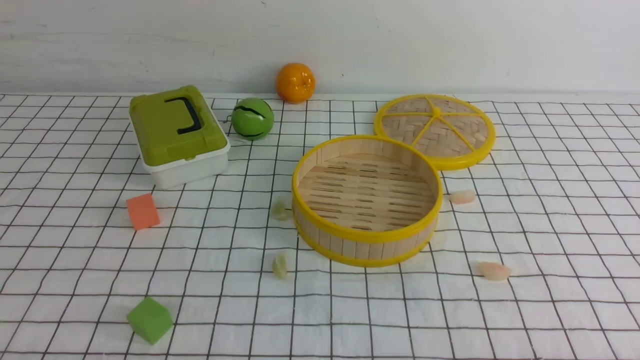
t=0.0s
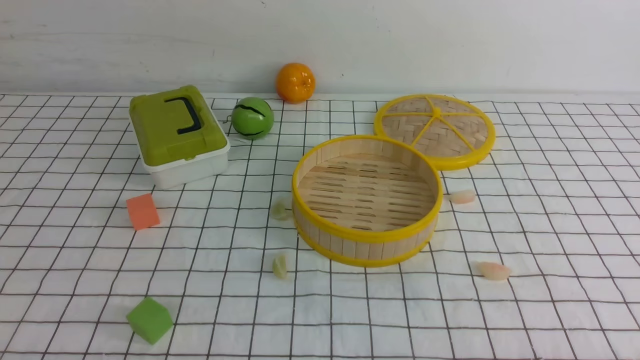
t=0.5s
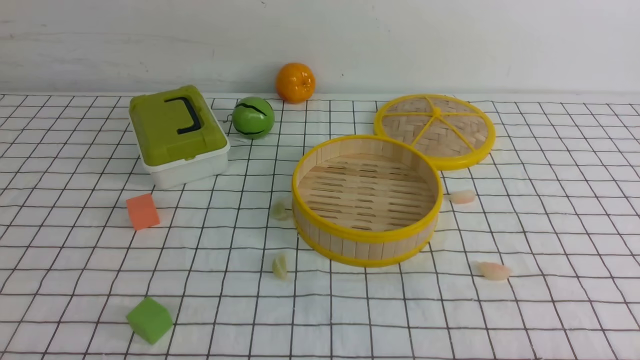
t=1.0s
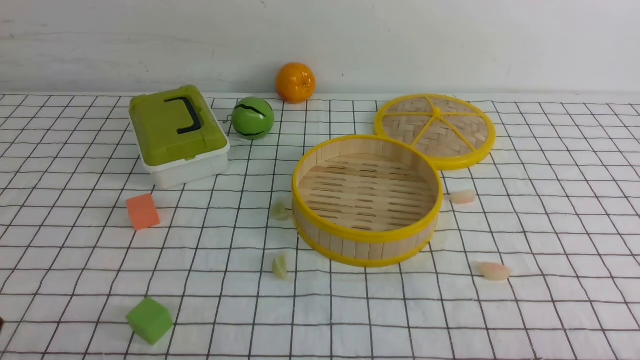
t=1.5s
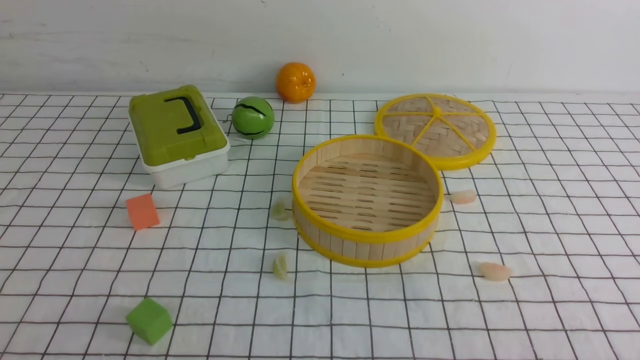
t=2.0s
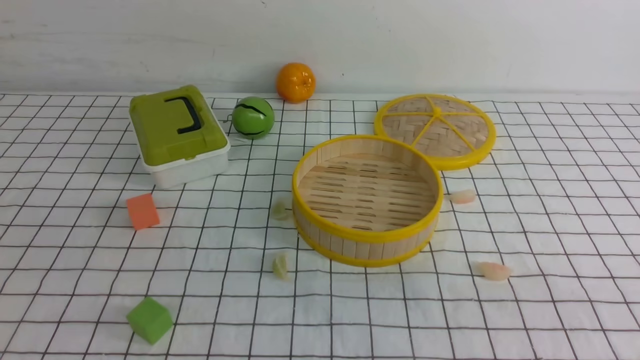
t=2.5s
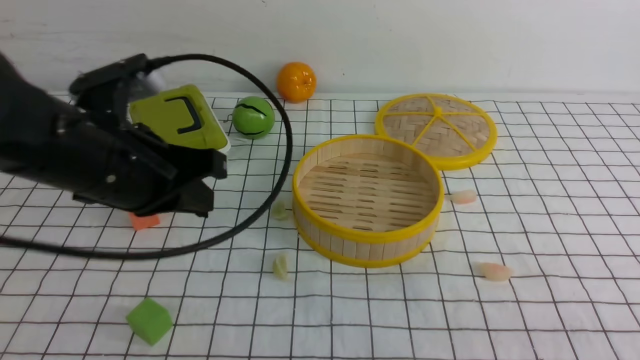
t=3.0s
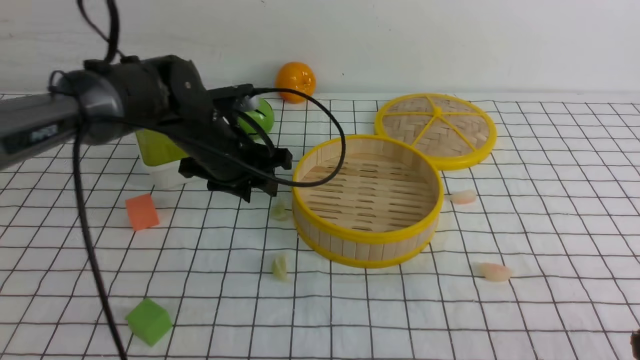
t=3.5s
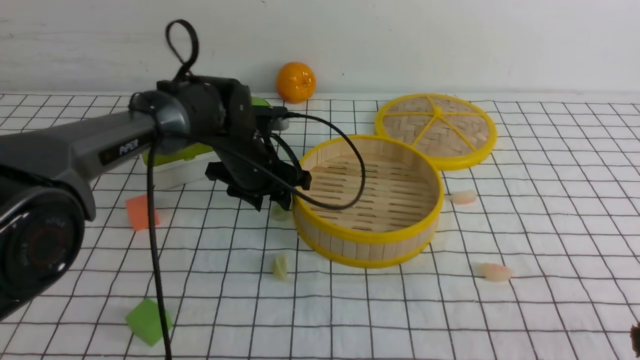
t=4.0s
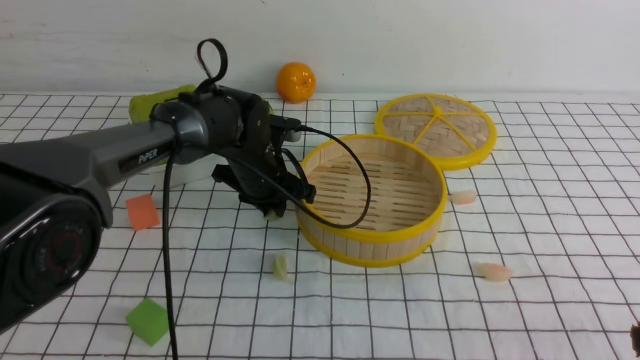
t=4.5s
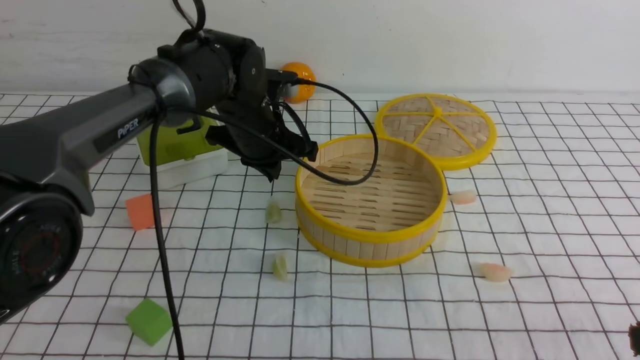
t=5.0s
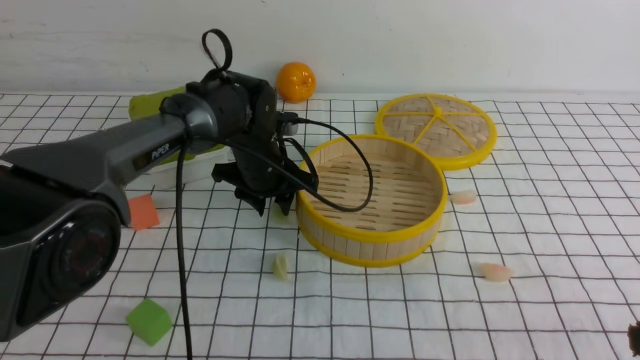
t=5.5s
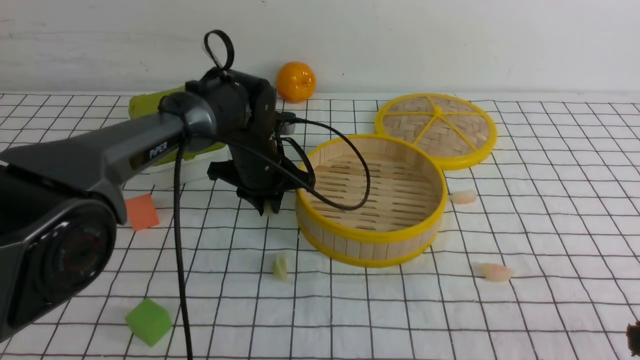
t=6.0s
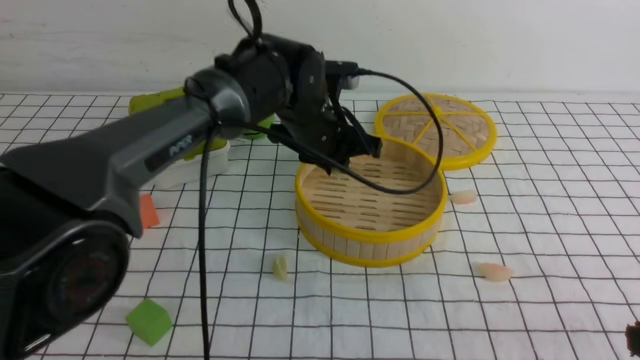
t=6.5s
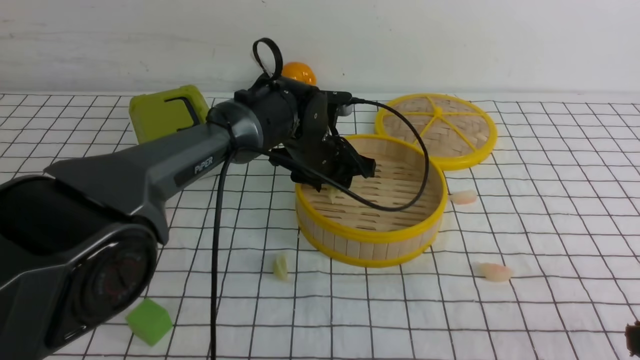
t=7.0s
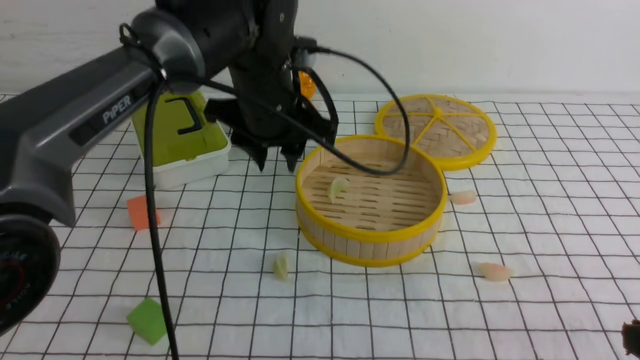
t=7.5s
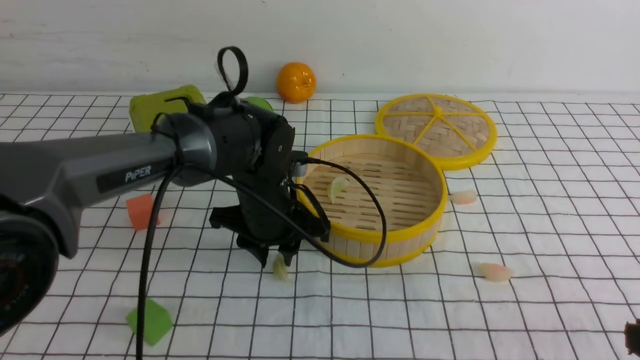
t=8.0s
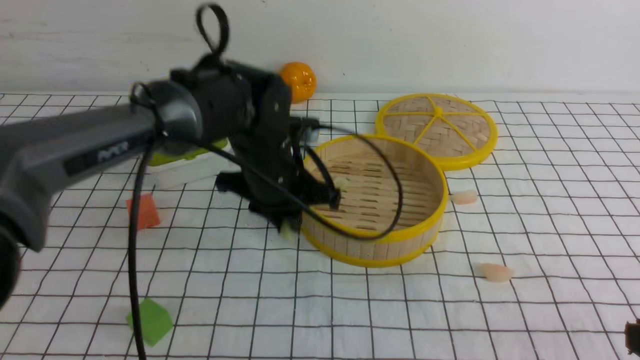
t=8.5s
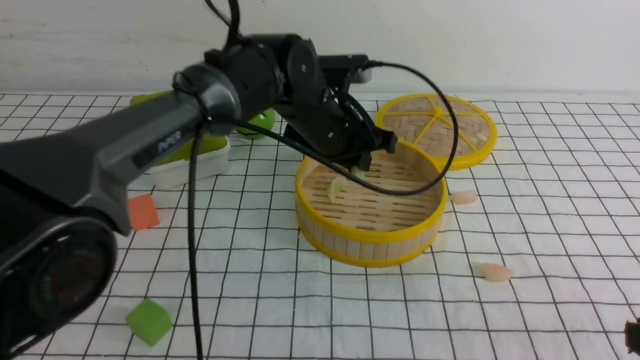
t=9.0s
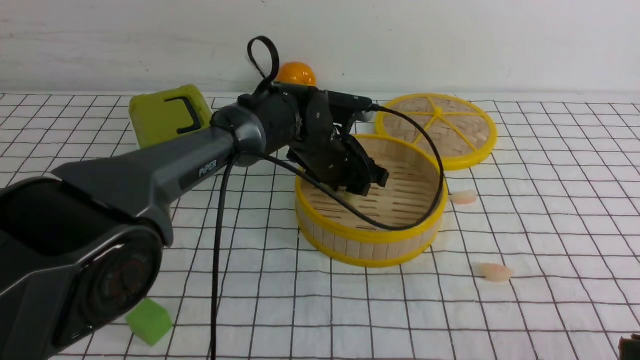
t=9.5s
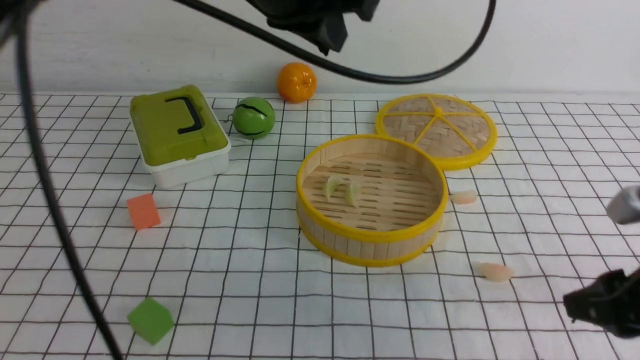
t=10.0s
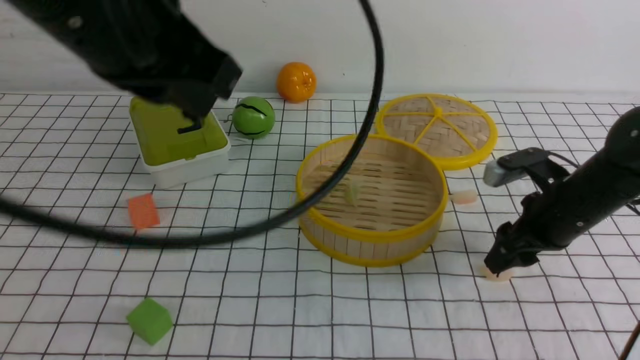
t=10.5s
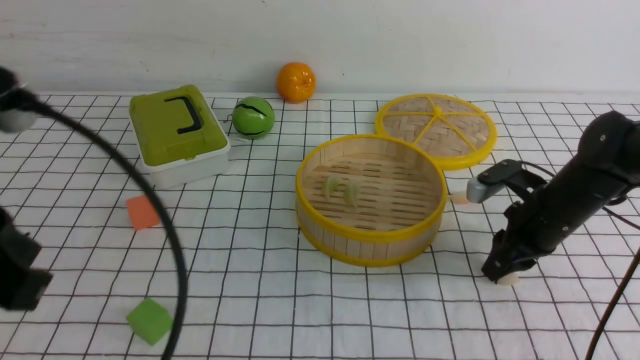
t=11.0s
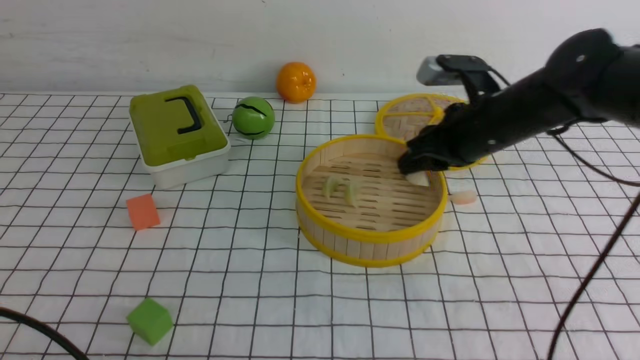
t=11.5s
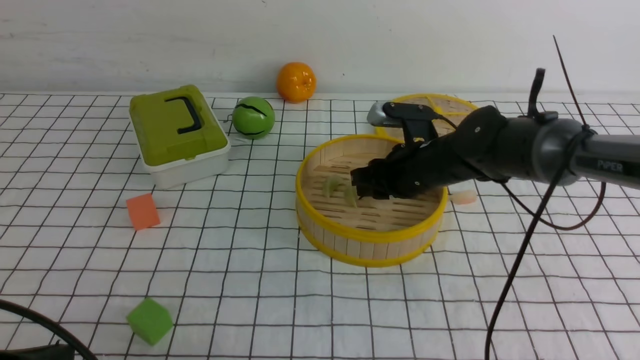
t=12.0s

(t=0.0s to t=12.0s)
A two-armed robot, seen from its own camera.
Task of the whole recording: put the dumplings into the steamer on the table with the white tablecloth.
Step, t=0.0s - t=6.0s: use the left arm to grab a dumpling.
Step, t=6.5s - t=7.0s: use the left arm to put the dumpling into the steamer.
Step, t=7.5s - t=8.5s: use the left arm to grab a dumpling.
Step, t=9.0s - t=9.5s: use the left arm to put the dumpling into the steamer.
Step, t=10.0s - t=11.0s: use the right arm to grab a dumpling.
t=2.0s - t=4.0s: The right gripper shifts approximately 10 cm forward, while the left gripper goes about 40 cm forward and to the right, and opens.
t=4.0s - t=6.0s: The left gripper closes.
t=6.0s - t=8.0s: The left gripper heads backward, covering approximately 10 cm, and reaches roughly 5 cm upward, then returns.
t=8.0s - t=10.0s: The left gripper travels upward by approximately 25 cm. The right gripper goes approximately 10 cm forward, and opens.
t=10.0s - t=12.0s: The left gripper goes about 35 cm backward, downward and to the left; the right gripper is displaced forward and to the left by roughly 25 cm.

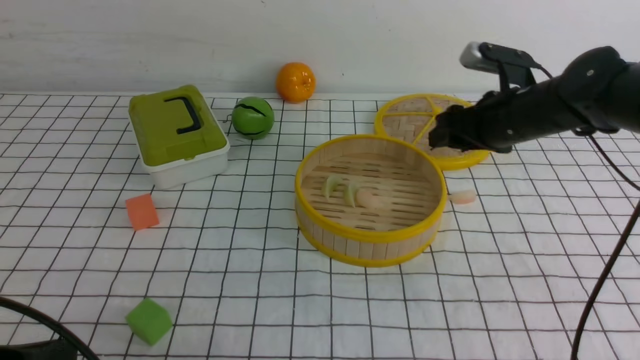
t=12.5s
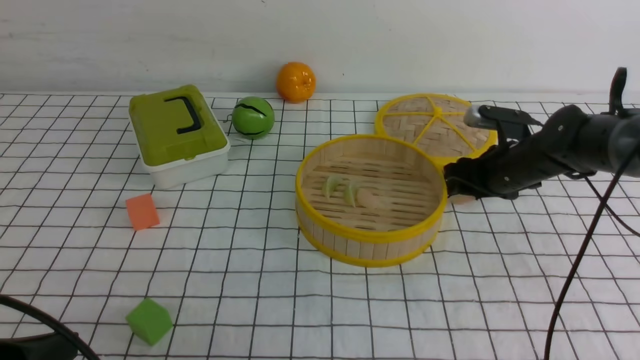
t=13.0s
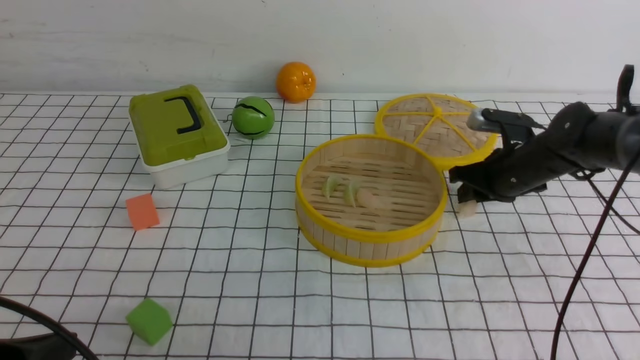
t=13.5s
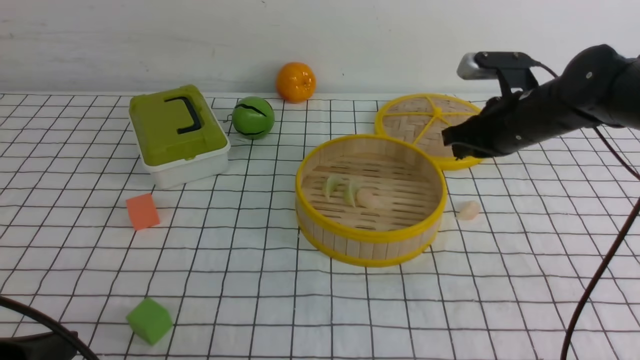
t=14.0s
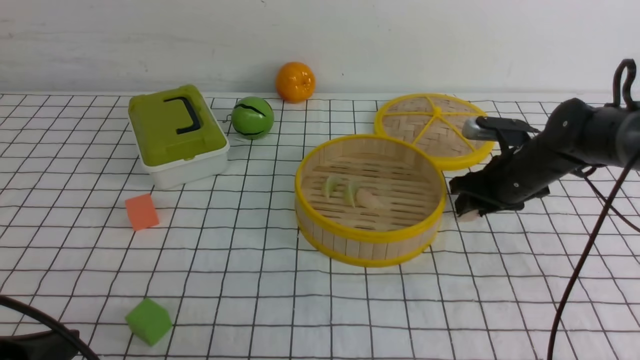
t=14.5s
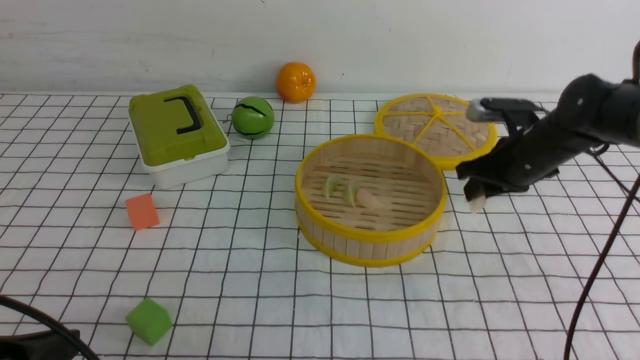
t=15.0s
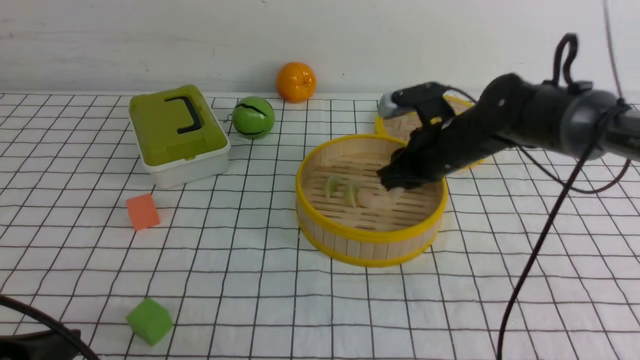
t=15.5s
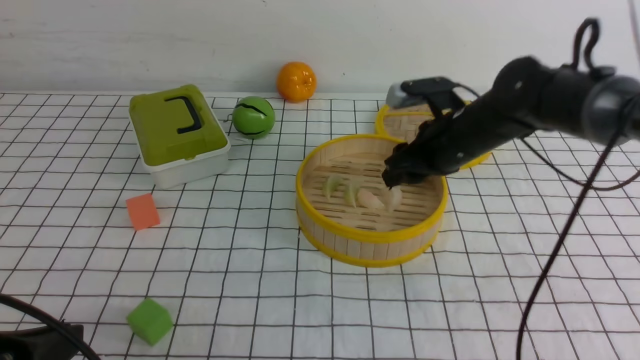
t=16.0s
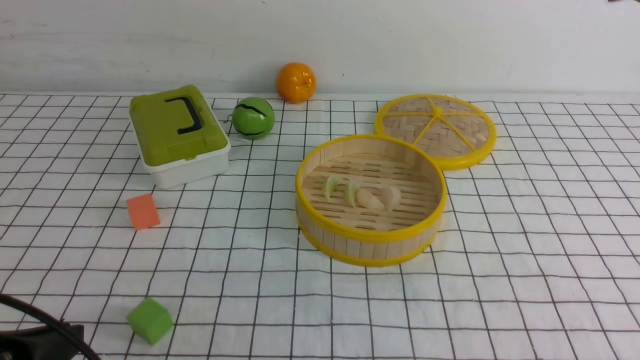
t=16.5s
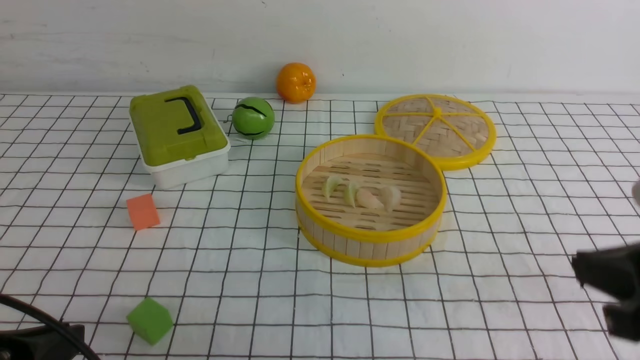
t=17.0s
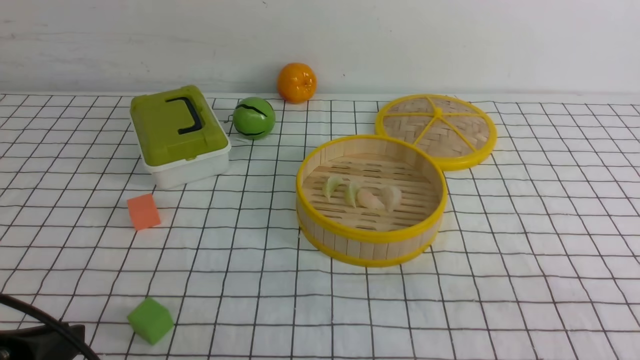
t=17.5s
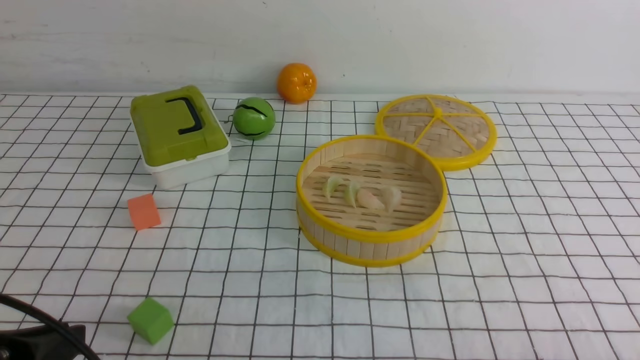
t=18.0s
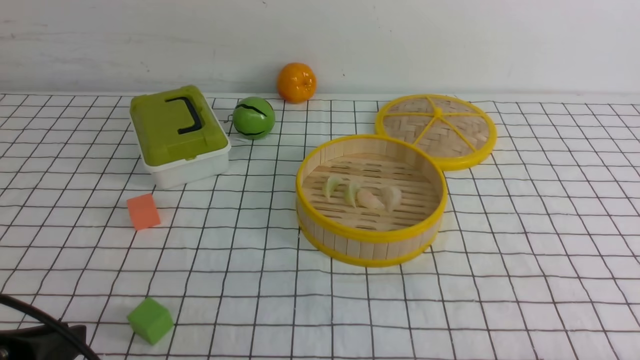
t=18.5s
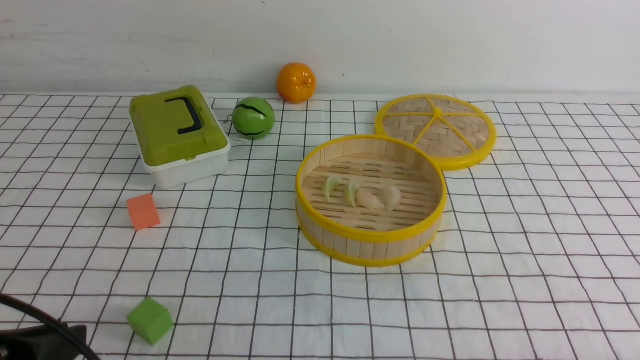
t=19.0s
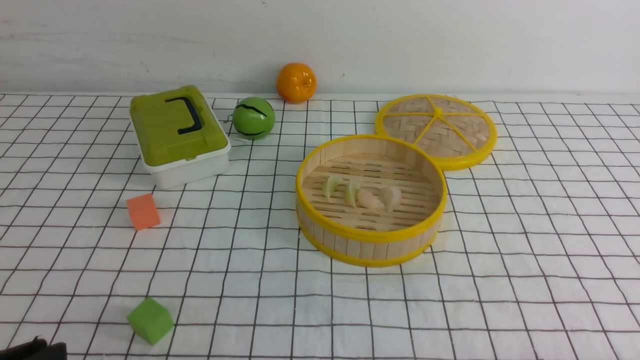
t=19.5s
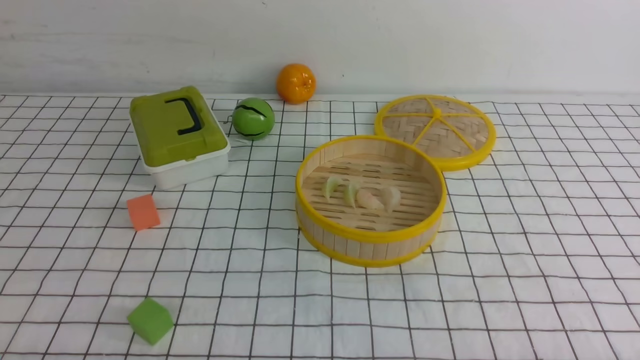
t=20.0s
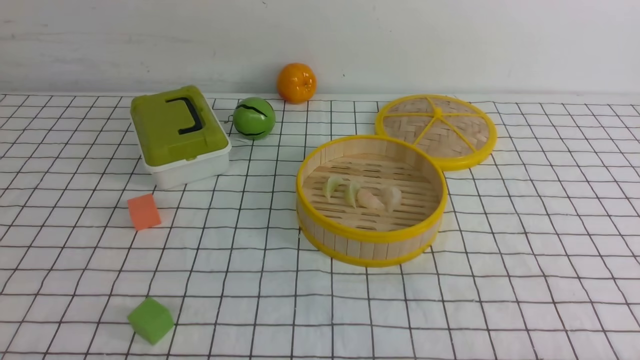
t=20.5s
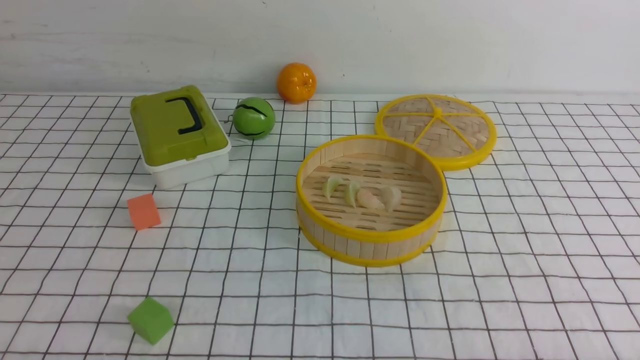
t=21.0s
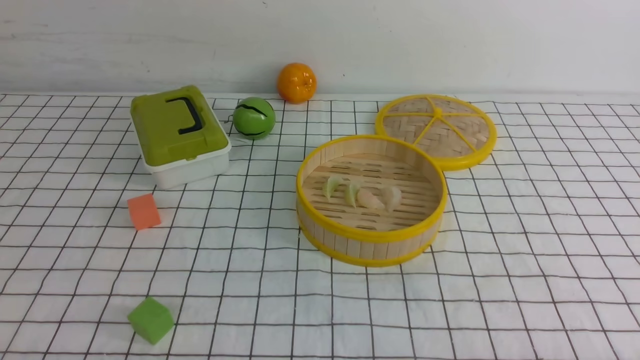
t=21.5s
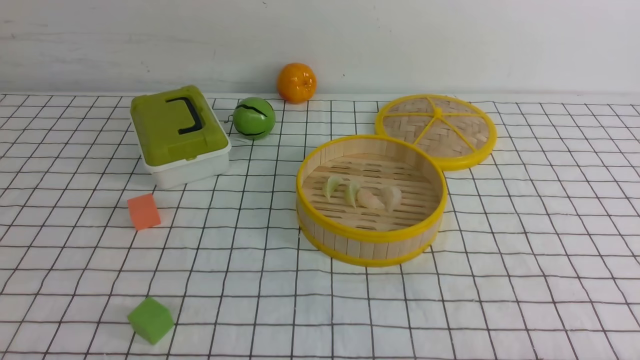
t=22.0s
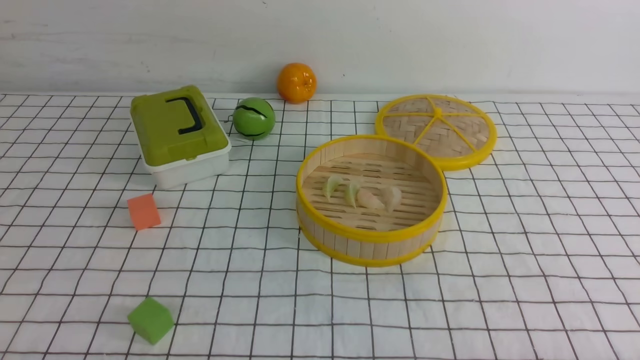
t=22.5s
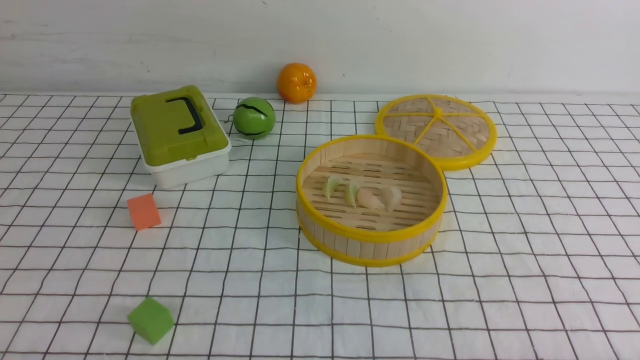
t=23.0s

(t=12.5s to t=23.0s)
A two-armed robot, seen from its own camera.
Task of the whole recording: put the dumplings into the steamer on the table with the white tablecloth.
Step, t=13.0s - t=15.0s: use the right arm to grab a dumpling.
Step, t=15.5s - t=16.0s: use the right arm to put the dumpling into the steamer.
t=12.5s - t=14.5s: The right gripper goes up and down, roughly 5 cm each way, reversing 2 times, and closes.
t=14.5s - t=16.5s: The right gripper travels upward and backward by roughly 35 cm, and closes.
t=19.0s - t=21.0s: The left gripper goes some 10 cm downward, and closes.
t=21.0s - t=23.0s: Both grippers stay put.
